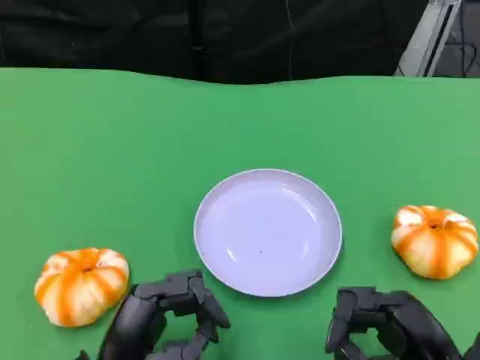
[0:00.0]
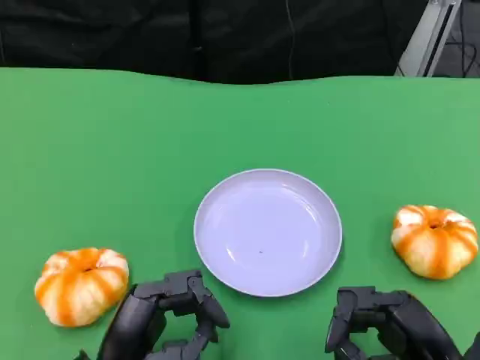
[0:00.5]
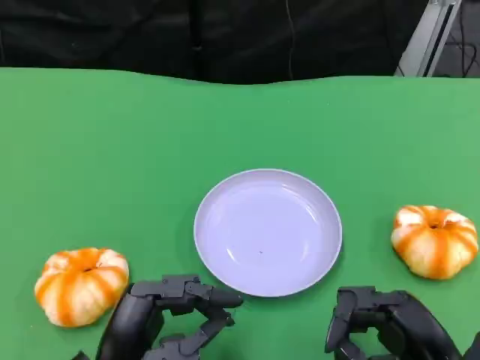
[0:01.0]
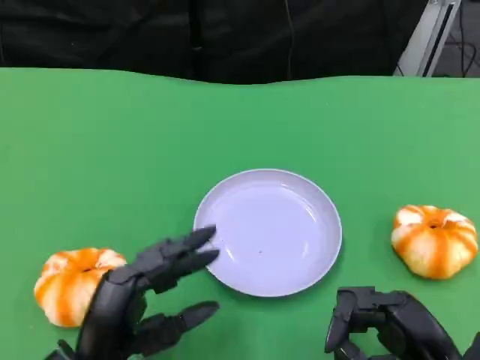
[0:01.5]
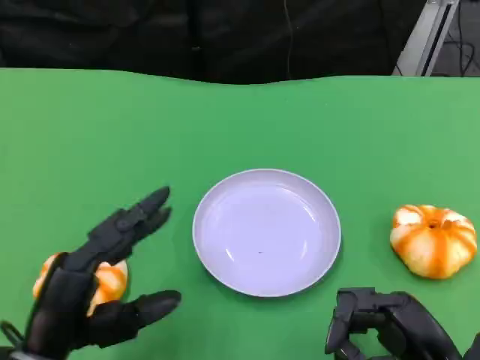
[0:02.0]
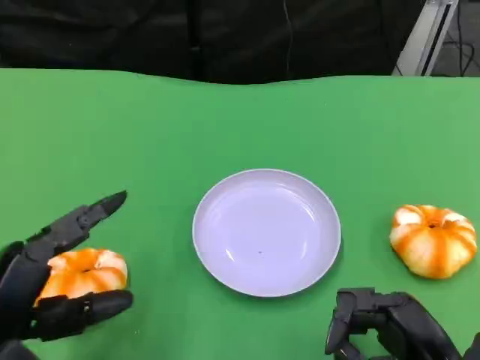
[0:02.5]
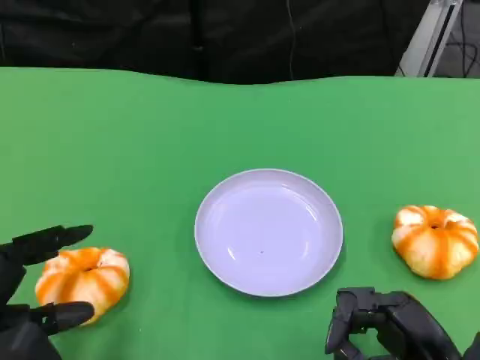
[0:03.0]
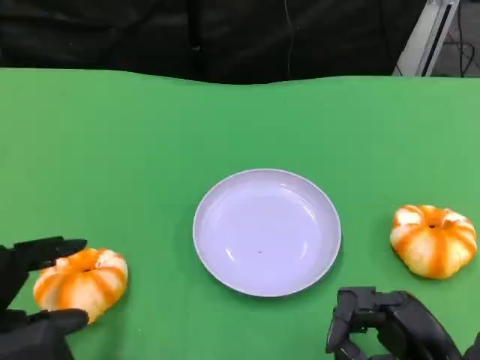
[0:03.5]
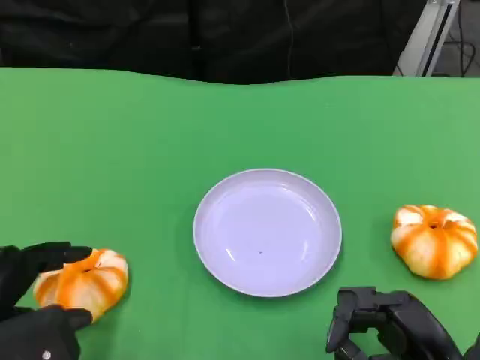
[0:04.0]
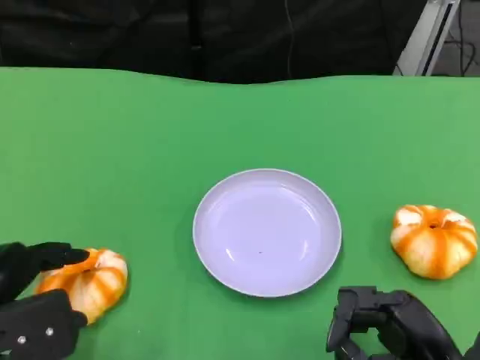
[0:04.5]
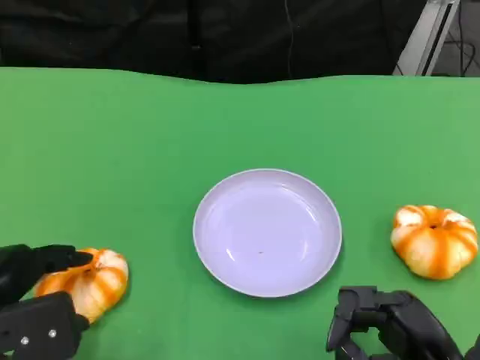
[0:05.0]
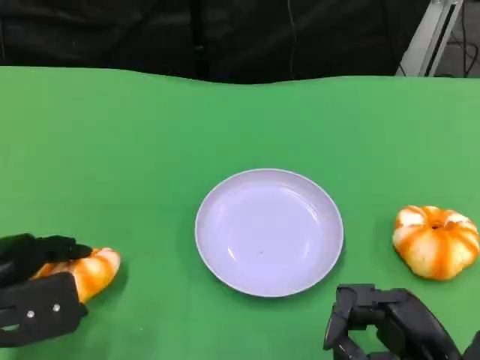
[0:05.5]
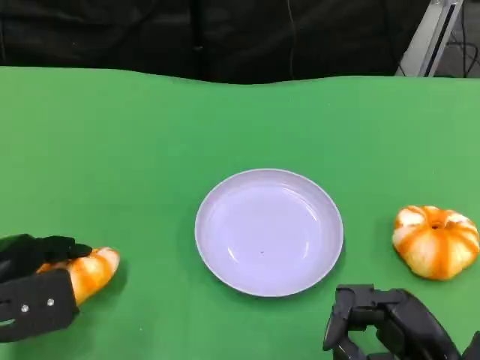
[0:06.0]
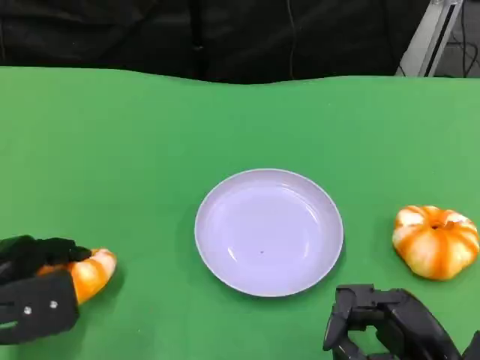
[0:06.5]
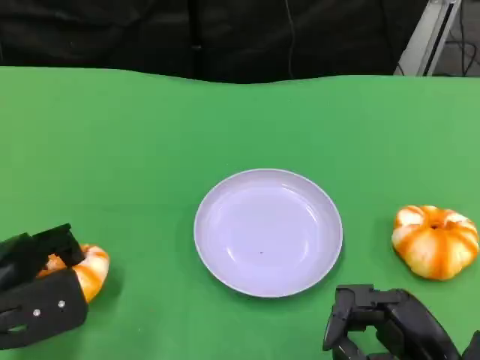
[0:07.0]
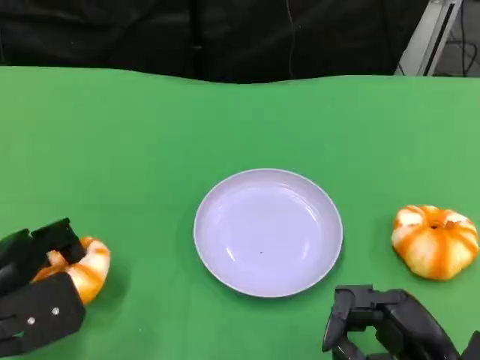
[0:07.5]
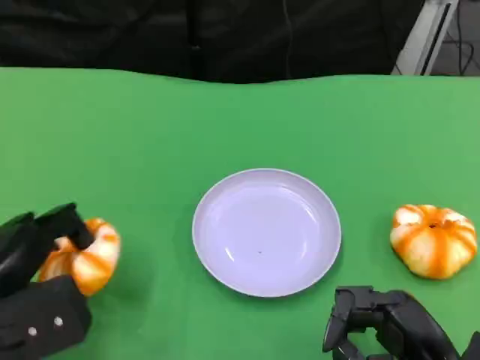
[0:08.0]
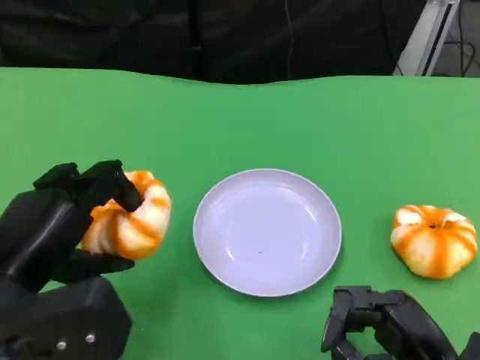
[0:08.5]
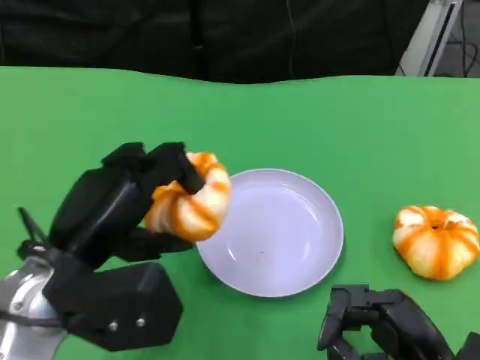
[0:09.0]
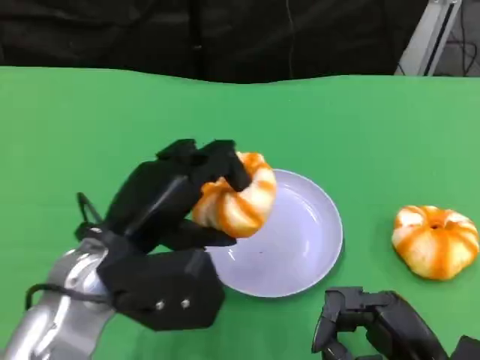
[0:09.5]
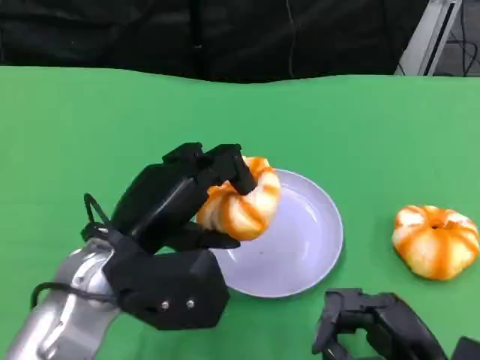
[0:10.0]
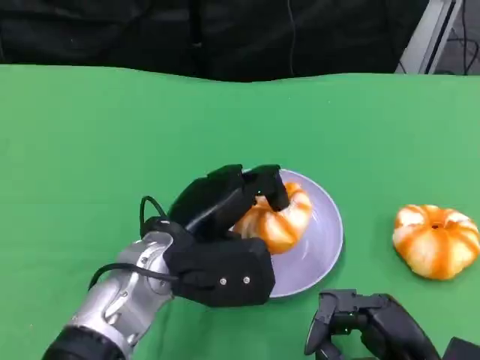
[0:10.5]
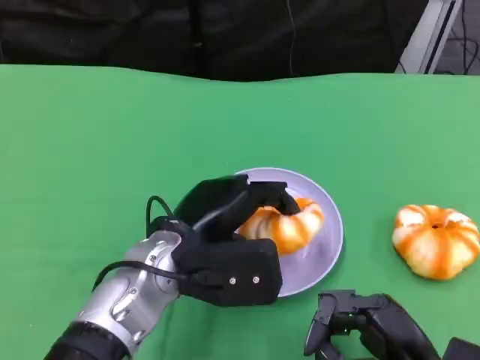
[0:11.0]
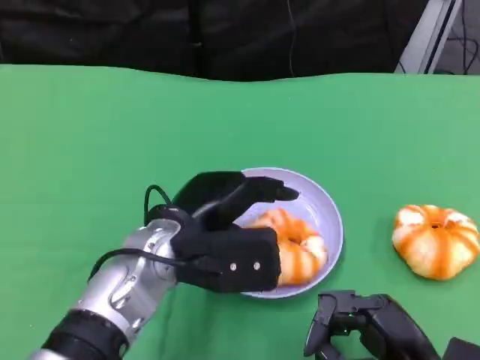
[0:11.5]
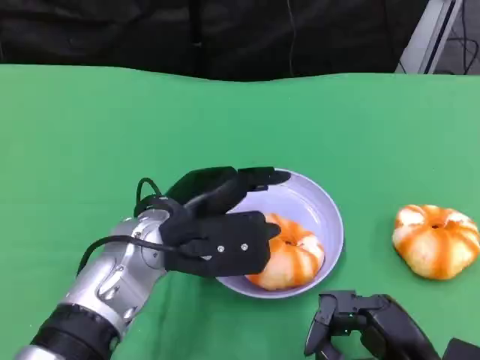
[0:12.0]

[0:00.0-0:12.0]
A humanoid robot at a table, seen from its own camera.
Task of the whole recording: Grasp the bread from the table and place it into the plate.
0:00.0 to 0:02.0: The left hand heads upward and to the left, covering some 5 cm.
0:02.0 to 0:04.0: The left hand travels to the left by roughly 5 cm.
0:04.0 to 0:06.0: The left hand heads forward, covering roughly 5 cm.
0:08.0 to 0:10.0: The left hand heads to the right and forward, covering some 15 cm.

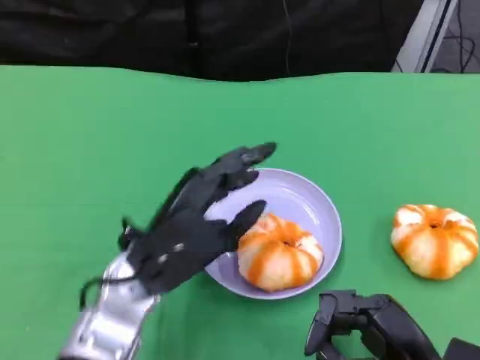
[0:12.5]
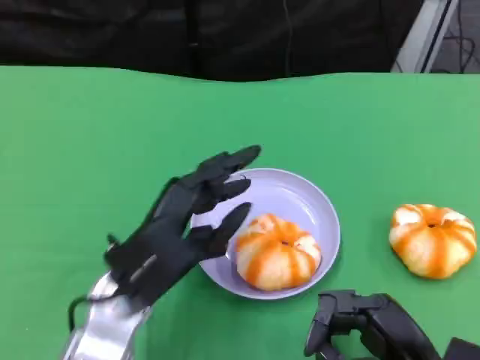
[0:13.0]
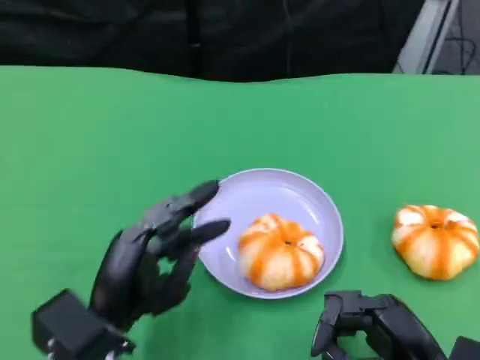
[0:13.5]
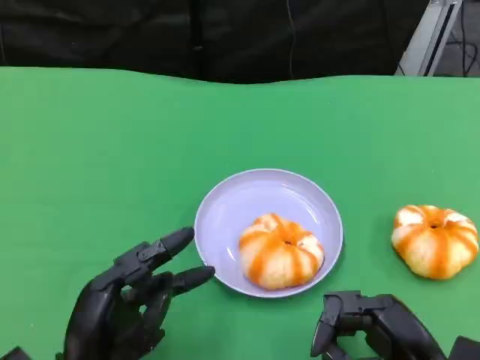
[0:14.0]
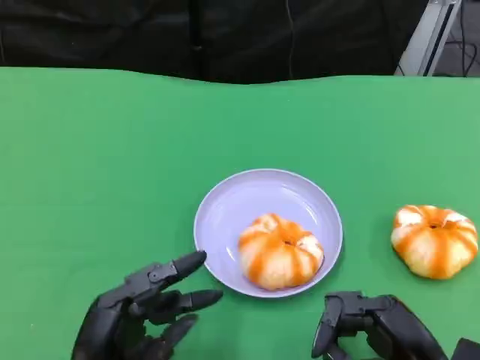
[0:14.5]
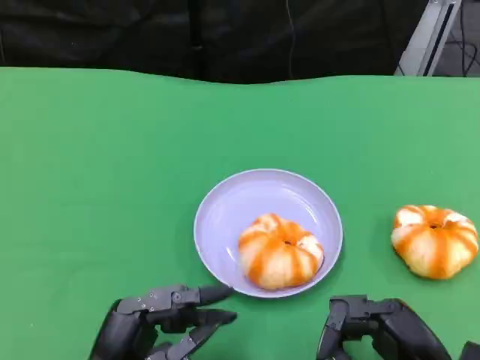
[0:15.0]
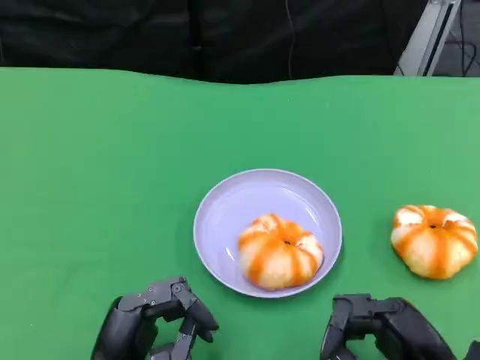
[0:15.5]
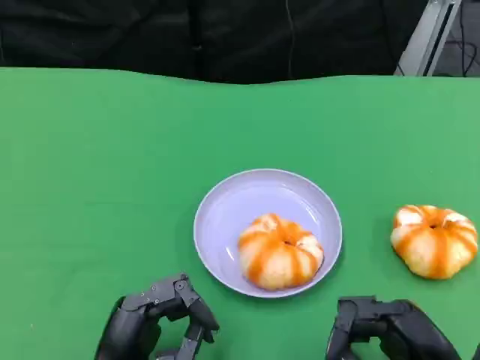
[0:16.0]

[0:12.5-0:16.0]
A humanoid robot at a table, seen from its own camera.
Task of the whole recording: Grasp the bread from the table and place it into the plate.
0:12.5 to 0:14.5: The left hand moves backward, downward and to the left, approximately 15 cm.
0:14.5 to 0:16.0: There are only small adjustments of the hands.

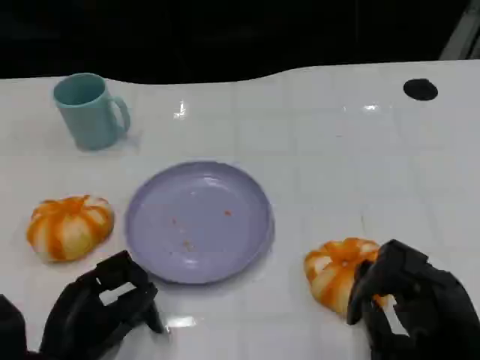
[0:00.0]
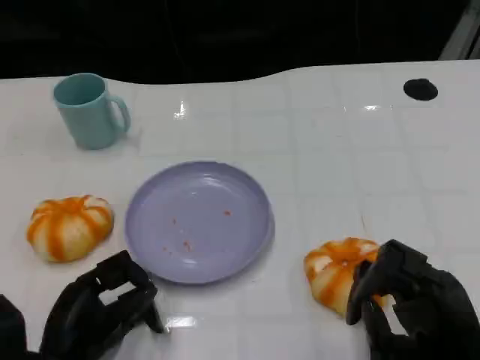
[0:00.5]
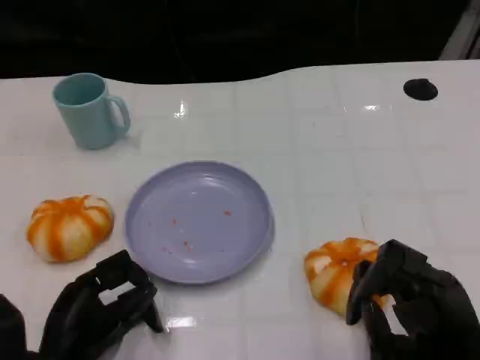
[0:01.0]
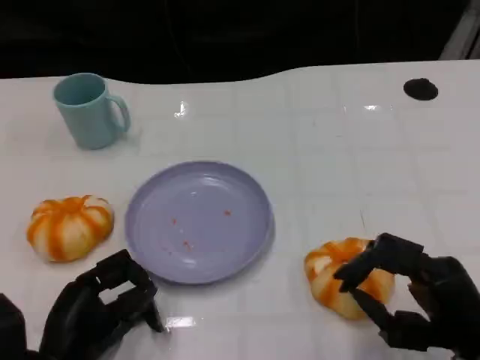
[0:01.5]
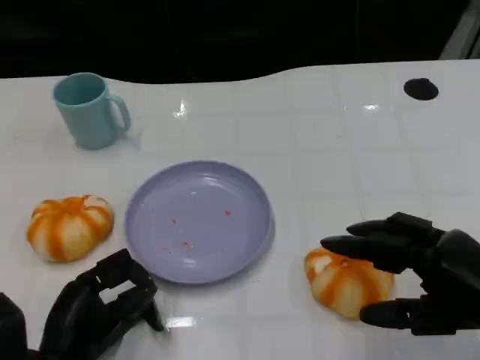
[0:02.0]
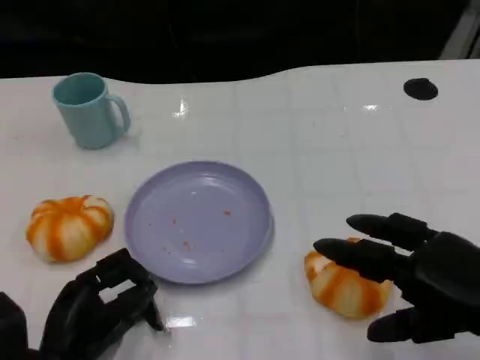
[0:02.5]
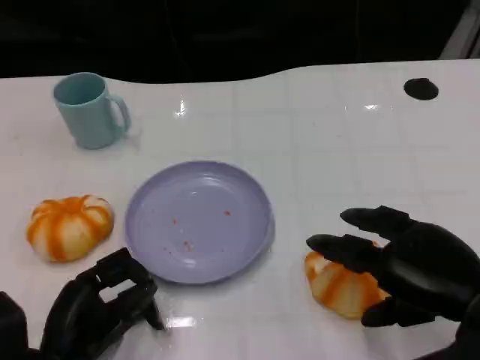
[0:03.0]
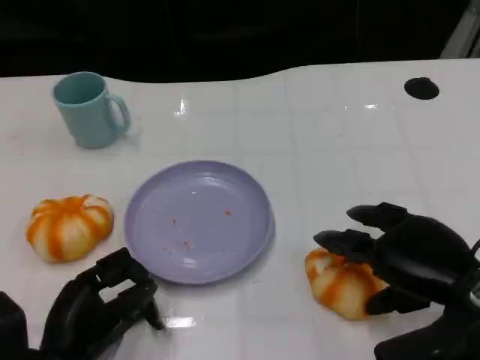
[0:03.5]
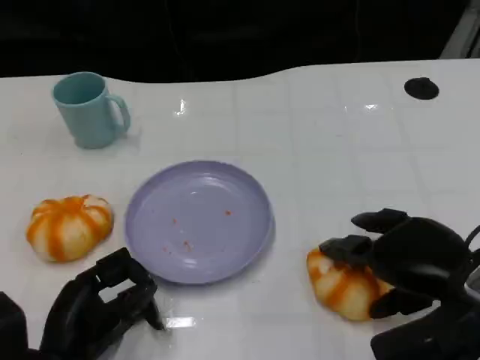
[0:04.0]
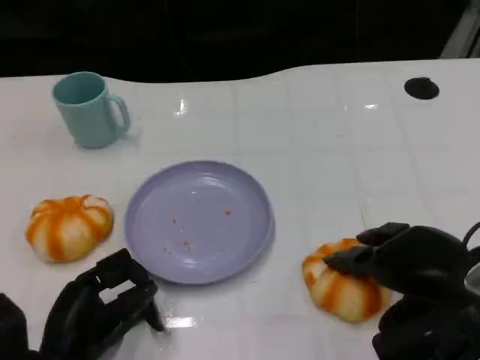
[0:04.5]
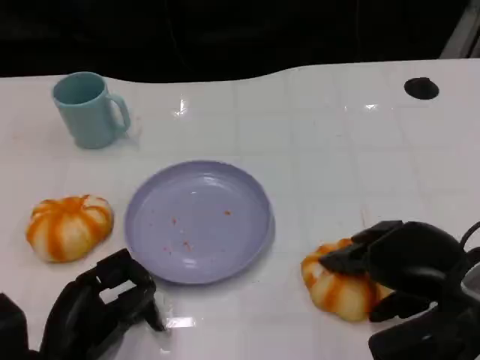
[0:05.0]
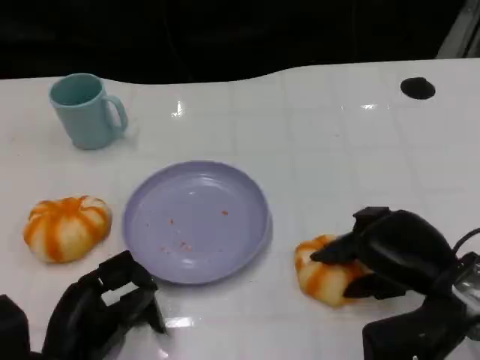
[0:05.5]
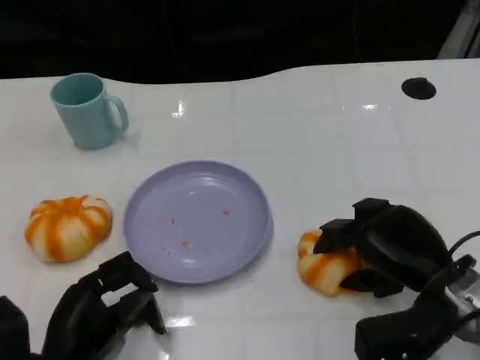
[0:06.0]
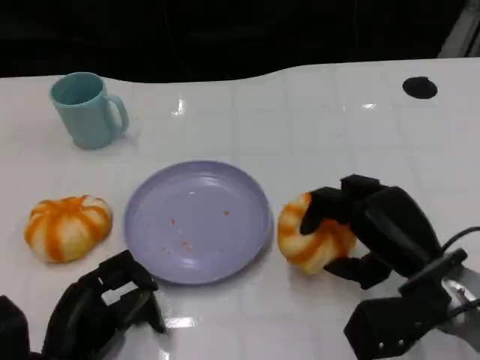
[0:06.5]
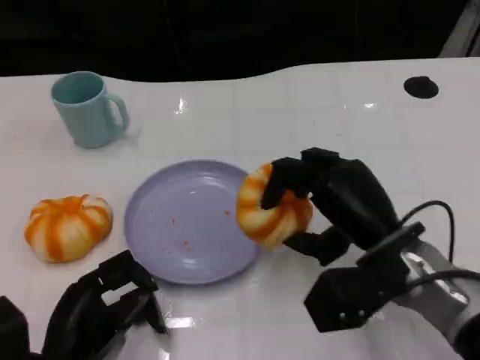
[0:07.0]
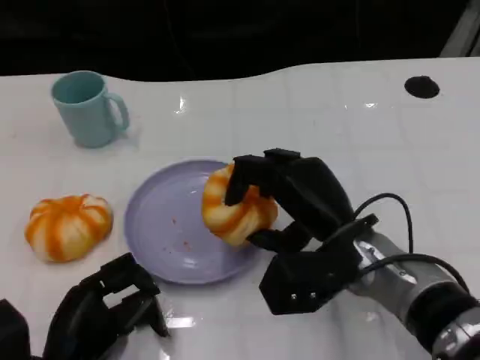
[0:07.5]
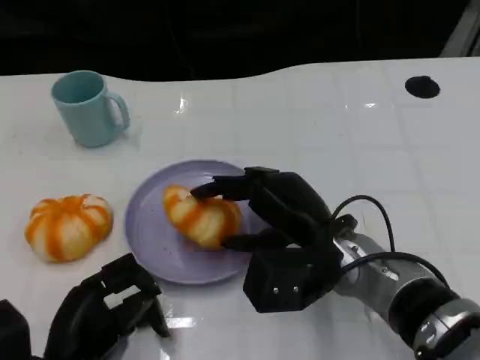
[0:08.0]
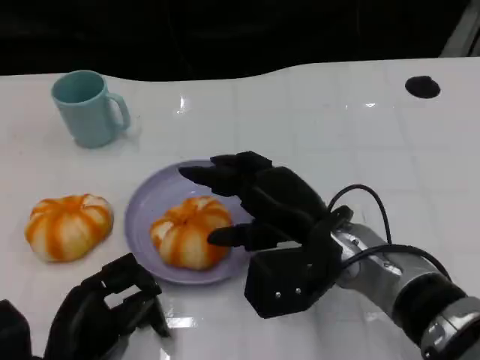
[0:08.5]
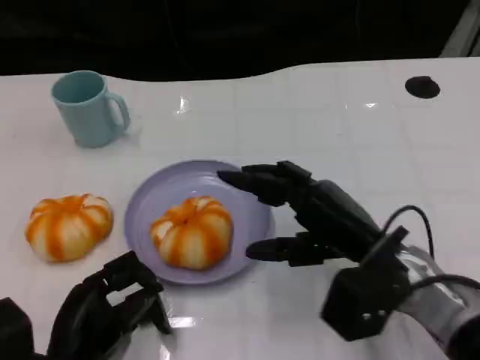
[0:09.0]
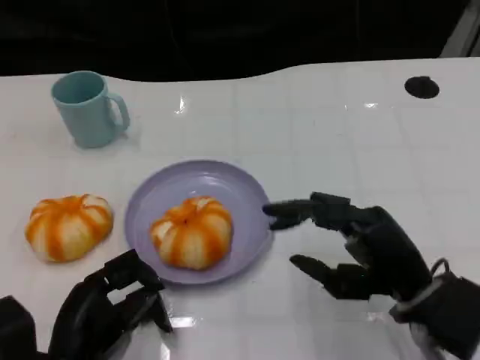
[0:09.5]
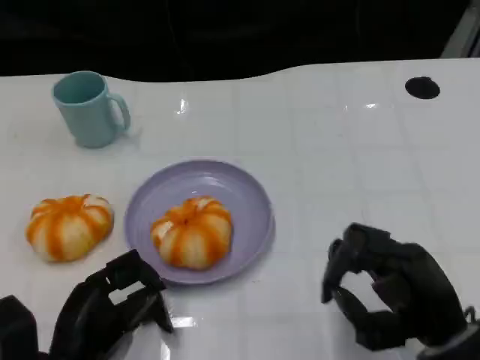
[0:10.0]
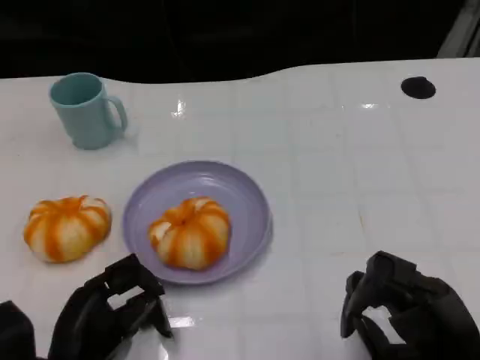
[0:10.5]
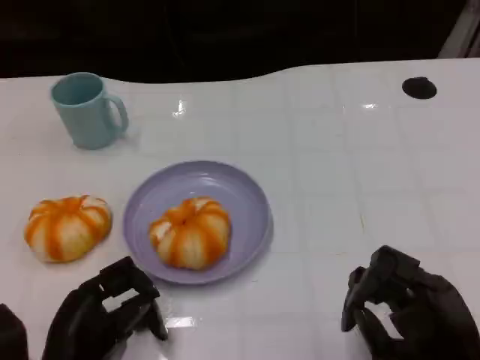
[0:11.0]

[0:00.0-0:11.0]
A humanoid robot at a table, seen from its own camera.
Task of the whole recording: Grasp the bread from the table and place it into the plate.
0:00.0 to 0:02.0: The right hand travels upward by roughly 5 cm.
0:02.0 to 0:03.5: The right hand shifts by some 5 cm.
0:03.5 to 0:05.5: The hands make only small movements.
0:05.5 to 0:07.5: The right hand is displaced to the left by approximately 10 cm.
0:07.5 to 0:09.0: The right hand shifts by about 5 cm.
0:09.0 to 0:11.0: The right hand heads backward and to the right, covering approximately 10 cm.
